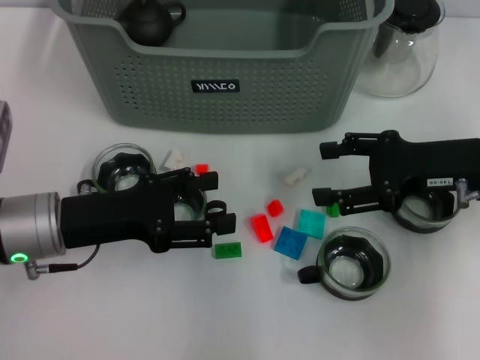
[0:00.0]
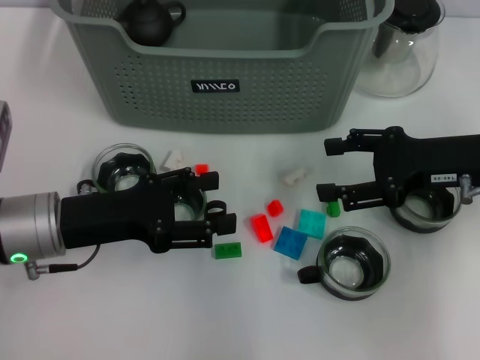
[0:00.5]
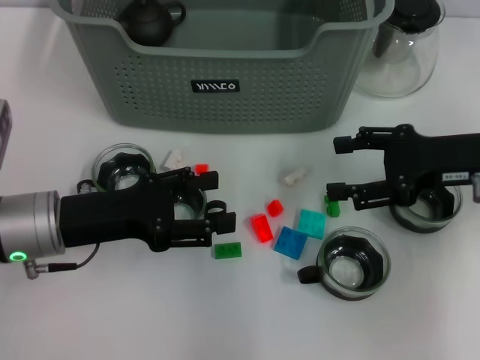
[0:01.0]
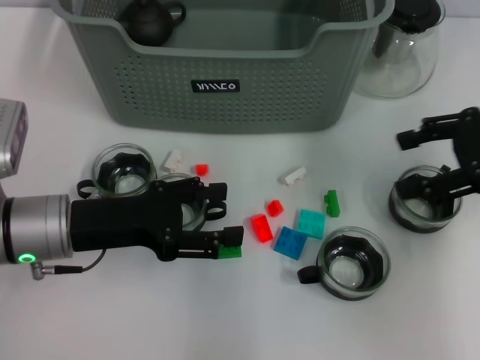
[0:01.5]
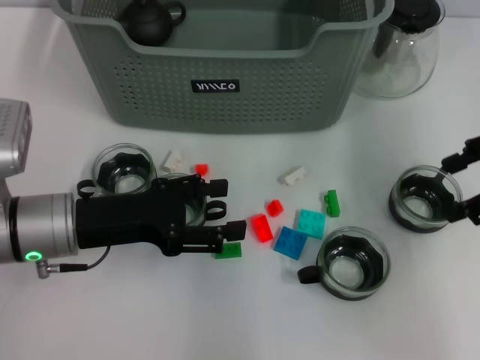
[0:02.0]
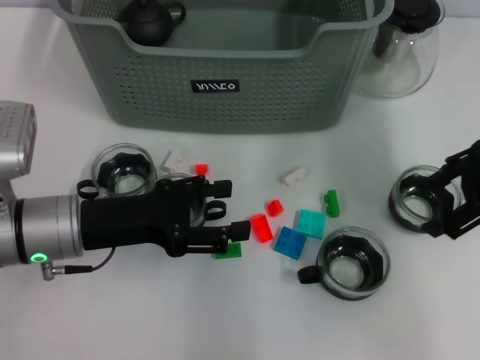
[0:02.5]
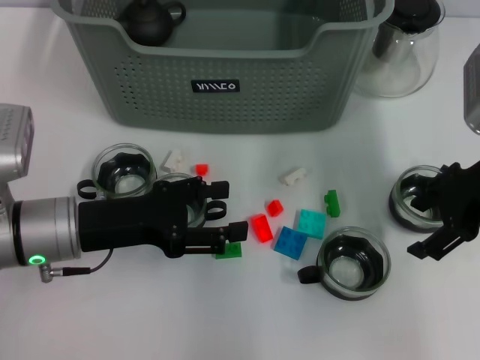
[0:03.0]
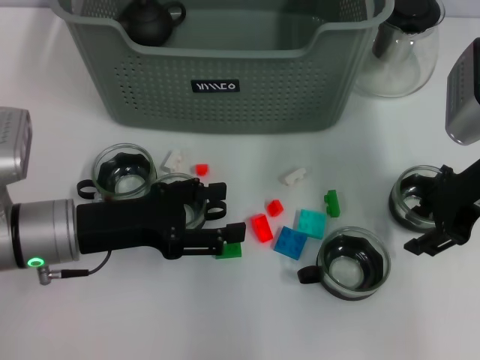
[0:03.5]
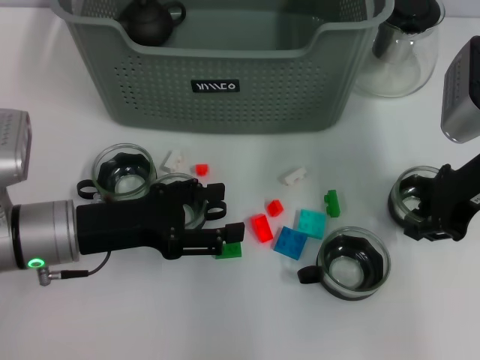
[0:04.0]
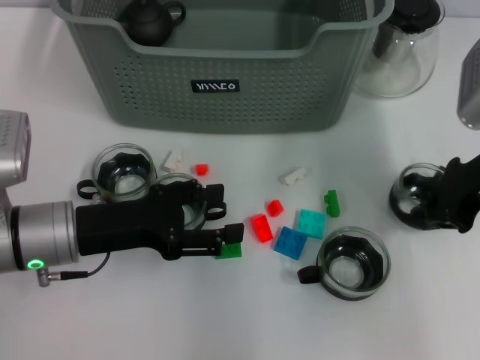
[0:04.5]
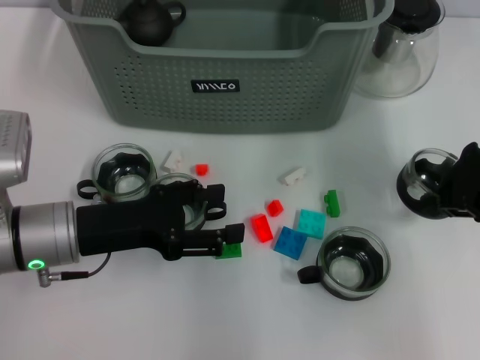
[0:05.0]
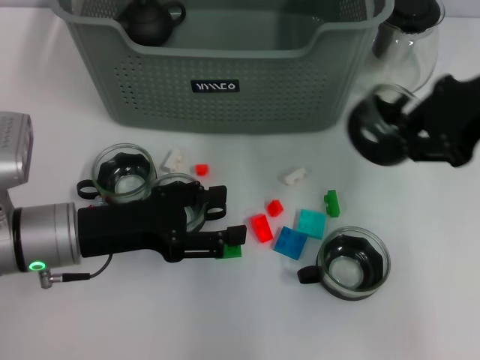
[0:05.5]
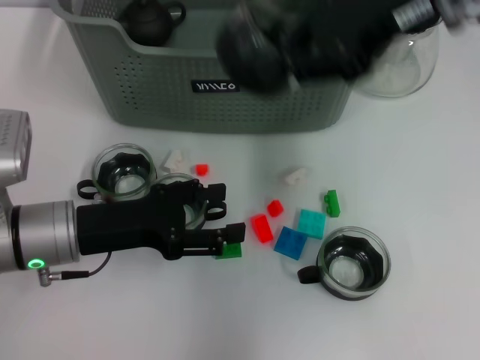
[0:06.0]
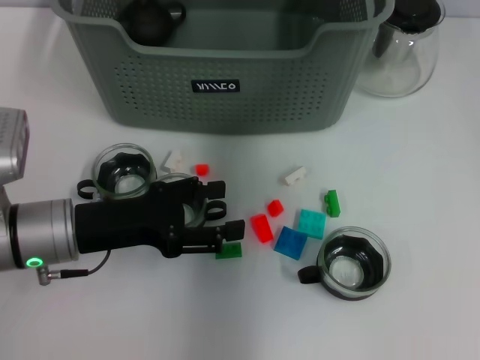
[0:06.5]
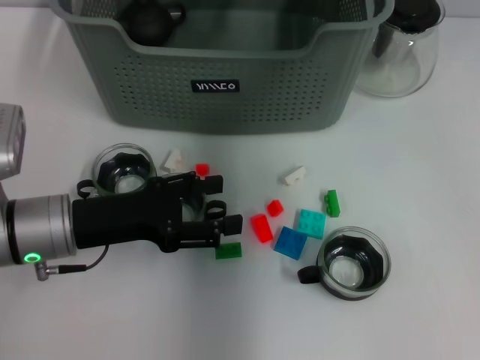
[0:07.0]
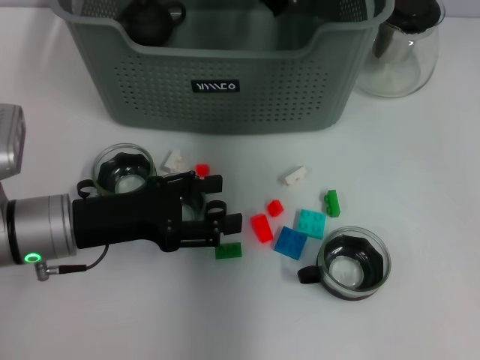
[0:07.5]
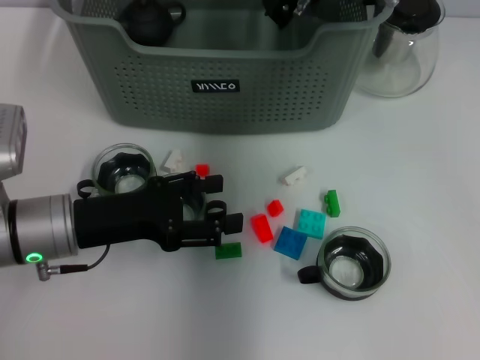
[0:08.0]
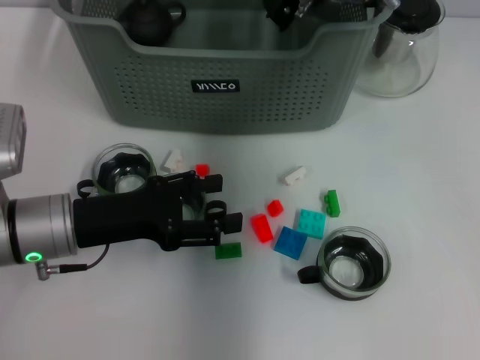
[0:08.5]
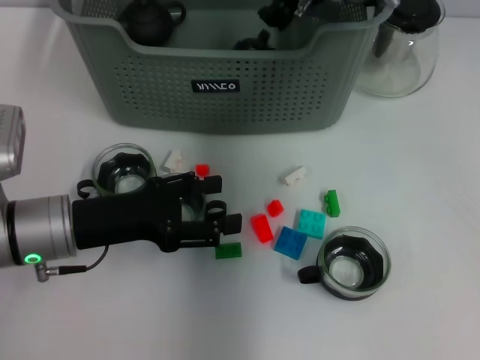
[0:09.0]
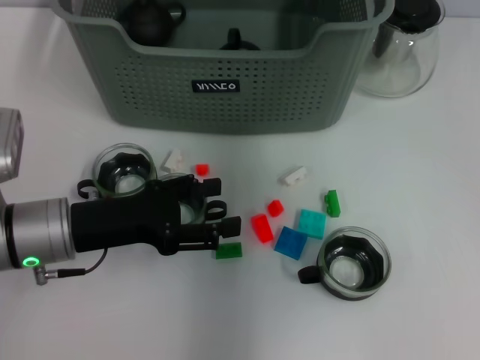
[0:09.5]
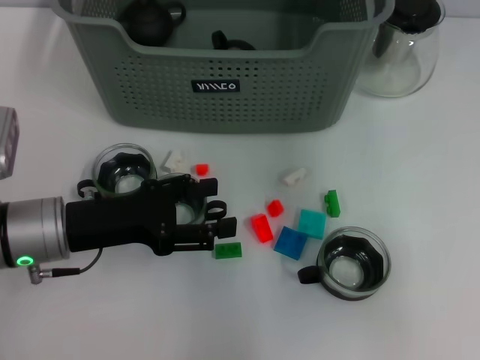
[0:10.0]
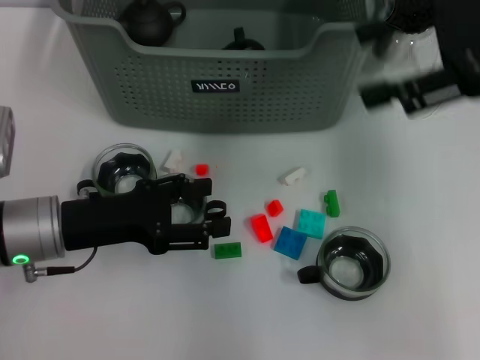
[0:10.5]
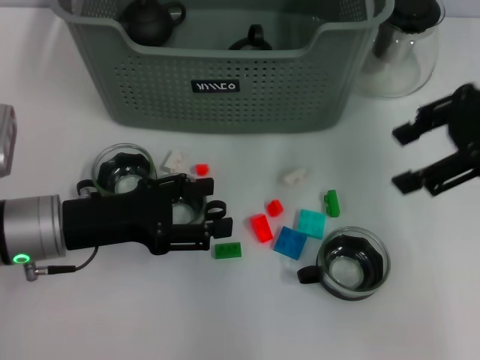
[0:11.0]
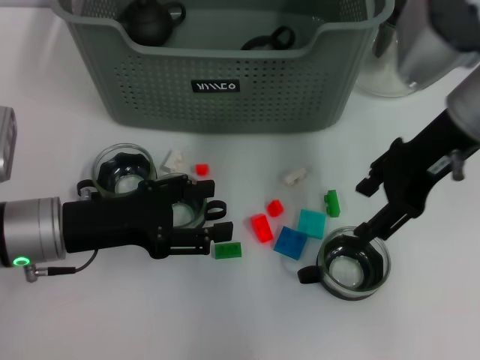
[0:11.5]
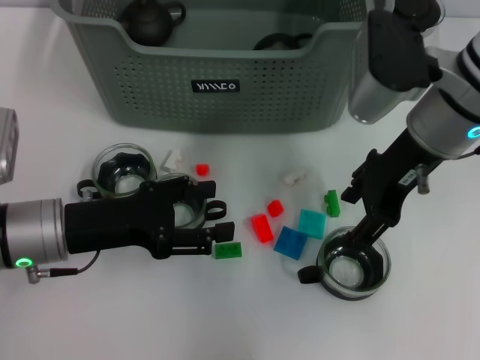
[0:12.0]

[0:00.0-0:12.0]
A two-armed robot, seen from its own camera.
Task of the whole recording: pick up the teacup on the table and place it into the storage bin, pick up the block on the table and place it into the storage bin.
Step, 0:00.0 to 0:04.0: Grasp the cup with right gripper.
Step, 0:04.5 to 0:08.5: Place the cup in the storage box with right gripper.
0:00.0 to 0:02.0: The right gripper travels upward and to the right by about 10 cm.
0:02.0 to 0:04.0: The right gripper goes about 10 cm to the left and downward, and closes up.
0:04.0 to 0:06.0: The right gripper moves upward and to the left, about 20 cm.
0:06.0 to 0:08.0: The right gripper moves downward, forward and to the left, roughly 15 cm.
0:08.0 to 0:10.0: The right gripper moves upward, backward and to the right, some 20 cm, and opens up.
0:10.0 to 0:12.0: The right gripper moves downward, about 15 cm.

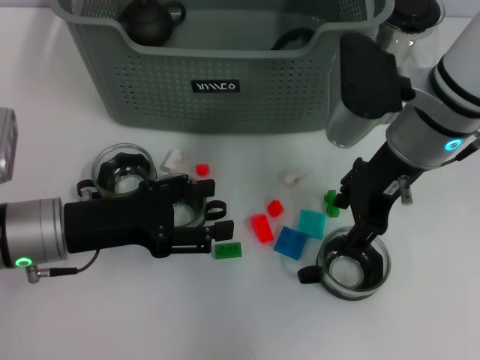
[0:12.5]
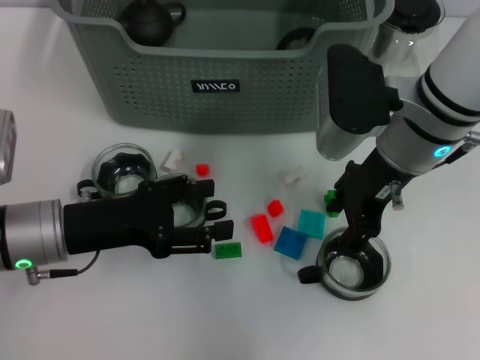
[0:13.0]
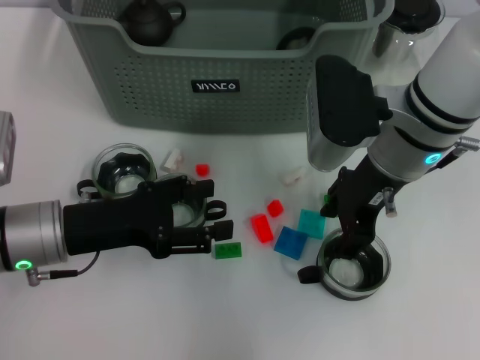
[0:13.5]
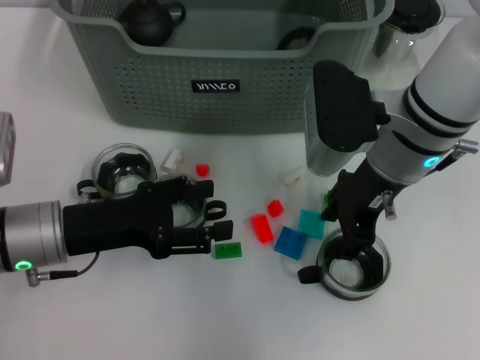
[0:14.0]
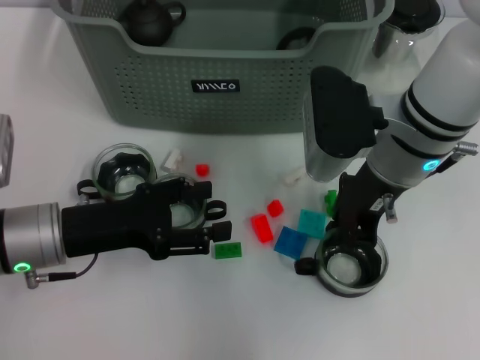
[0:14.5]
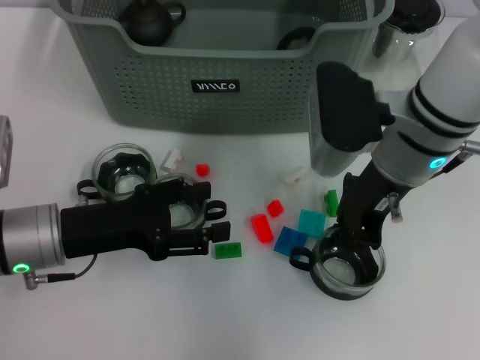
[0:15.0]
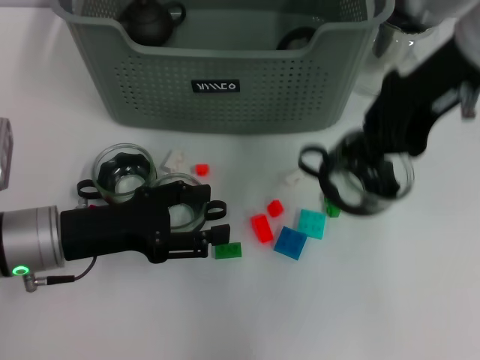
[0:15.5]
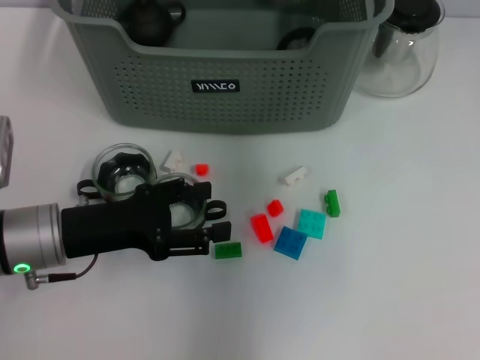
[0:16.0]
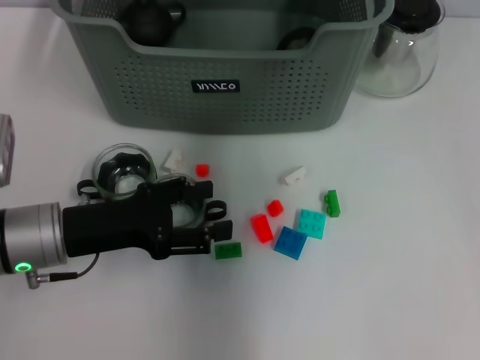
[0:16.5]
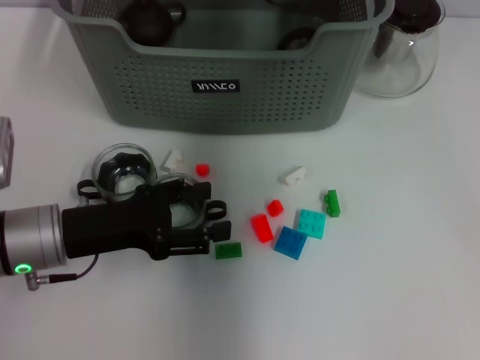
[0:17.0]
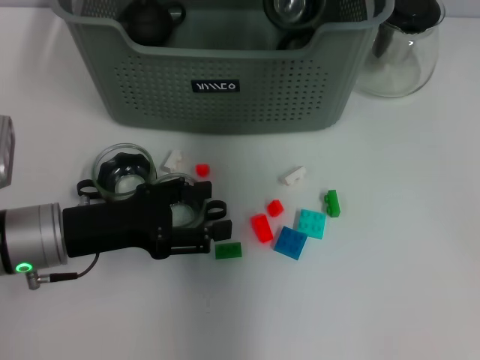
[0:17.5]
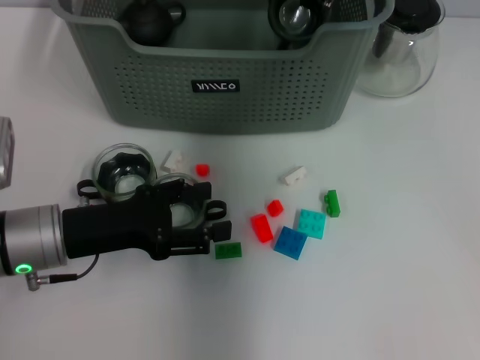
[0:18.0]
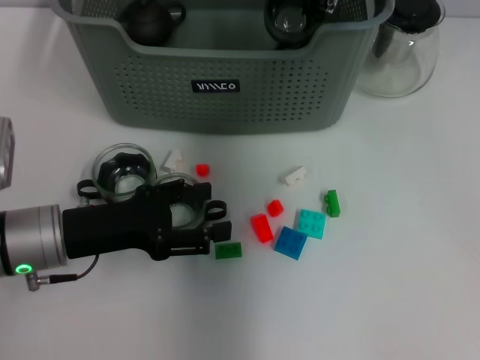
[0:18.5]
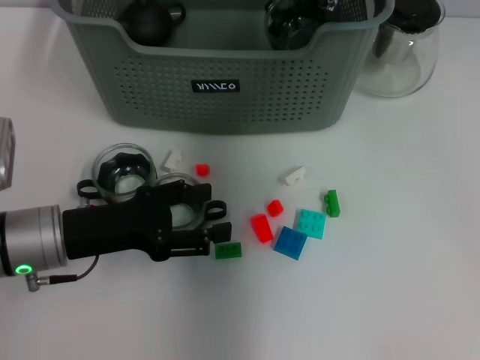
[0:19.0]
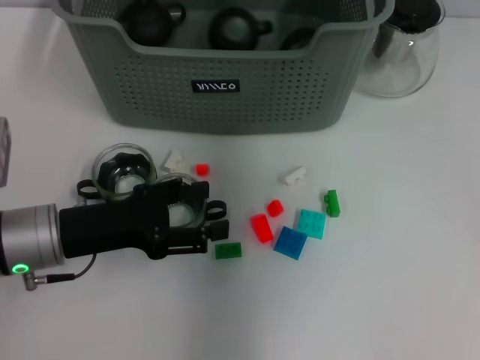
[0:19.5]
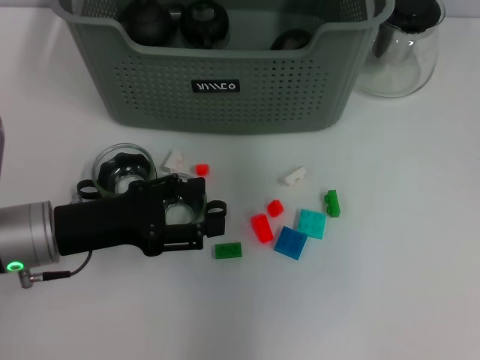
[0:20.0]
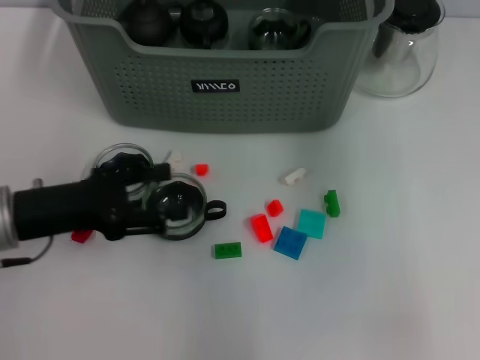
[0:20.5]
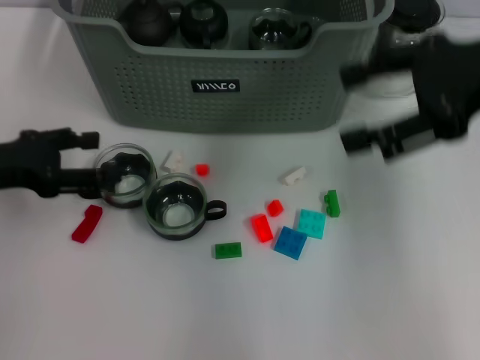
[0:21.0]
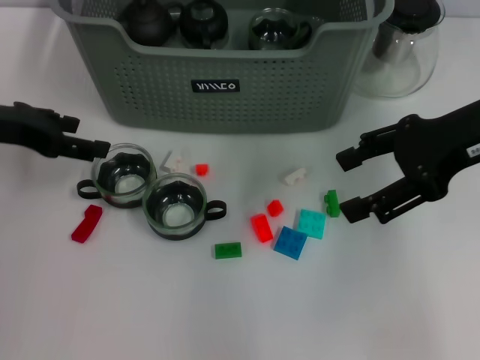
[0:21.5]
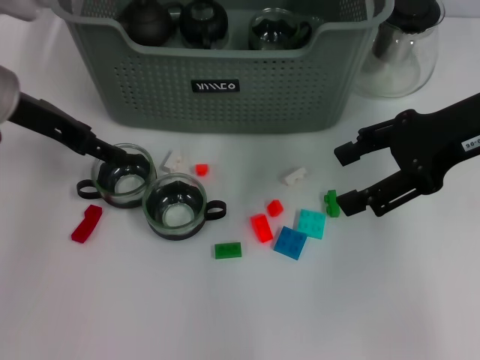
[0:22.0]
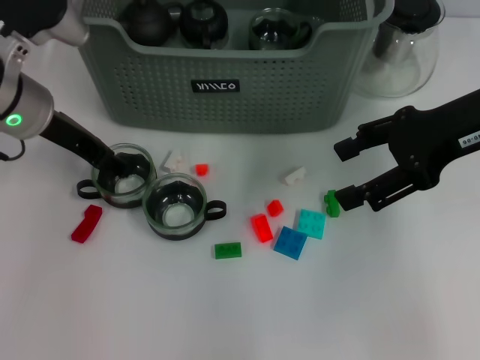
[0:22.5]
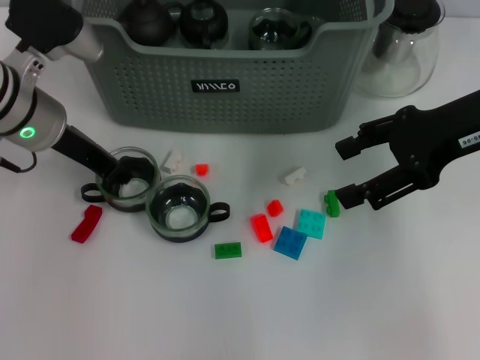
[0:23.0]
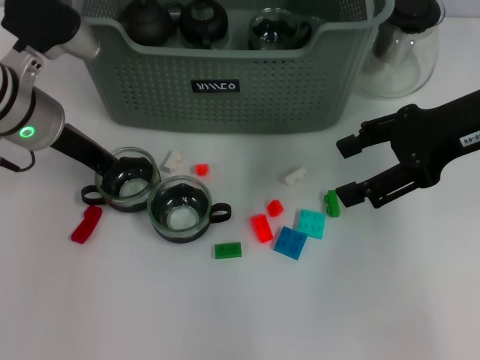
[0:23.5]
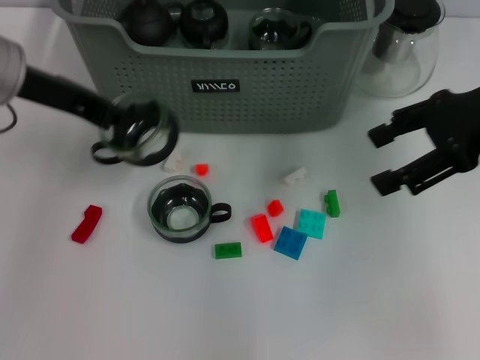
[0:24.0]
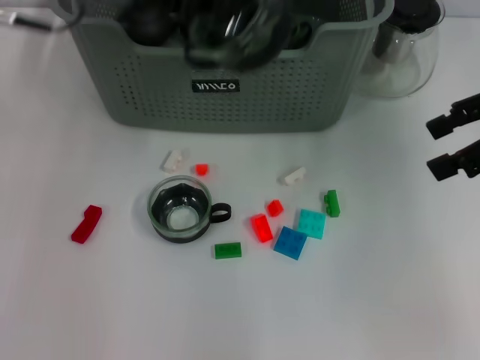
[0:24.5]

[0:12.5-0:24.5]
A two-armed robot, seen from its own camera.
Task of the whole recording: pick up the teacup on the table and place it into the storage bin, pick up the block on the table and place it into the storage bin.
Step, 0:12.5 to 0:14.5: Grasp the cup with right gripper.
Step, 0:15.0 to 0:19.0: Place the cup in the storage box with right gripper.
Step, 0:19.5 to 0:23.5: Grasp the cup with left gripper.
0:12.5 to 0:14.5: The right gripper closes.
0:14.5 to 0:16.5: The right gripper moves upward and forward, approximately 20 cm.
0:16.5 to 0:18.5: The right gripper shifts roughly 10 cm downward.
0:18.5 to 0:20.5: The right gripper shifts some 20 cm upward, backward and to the right, and opens its fingers.
0:20.5 to 0:22.5: The left gripper heads forward and upward, covering roughly 15 cm. Meanwhile the right gripper moves downward, roughly 10 cm.
0:22.5 to 0:24.5: The right gripper heads to the right, covering approximately 5 cm; the left gripper shifts approximately 15 cm upward, and closes.

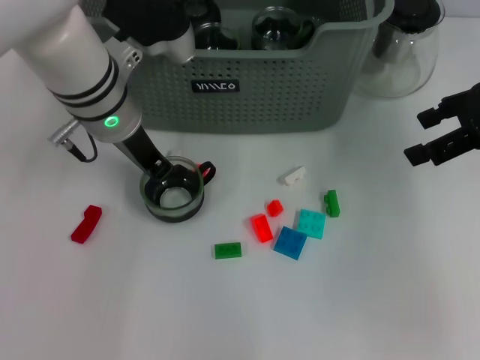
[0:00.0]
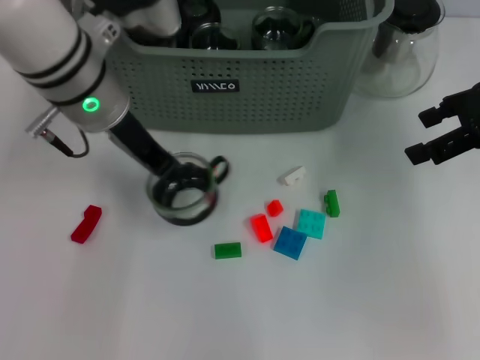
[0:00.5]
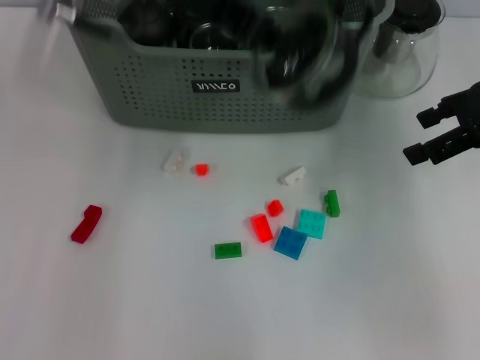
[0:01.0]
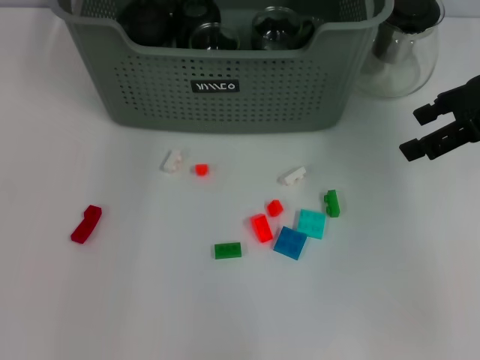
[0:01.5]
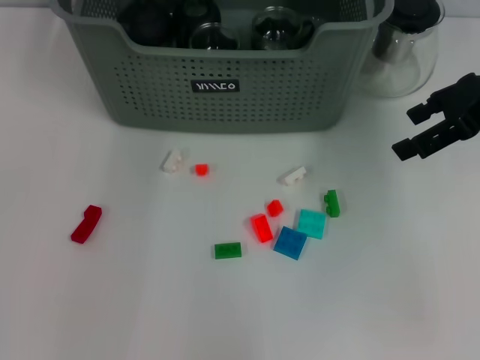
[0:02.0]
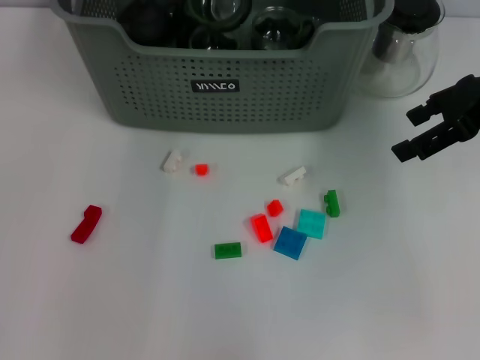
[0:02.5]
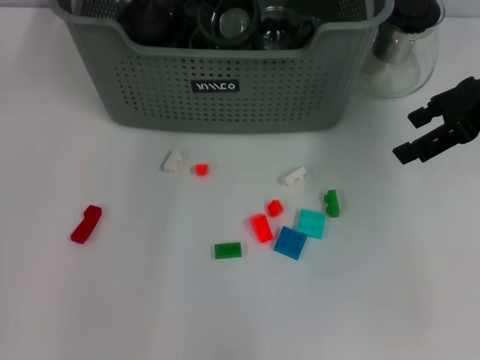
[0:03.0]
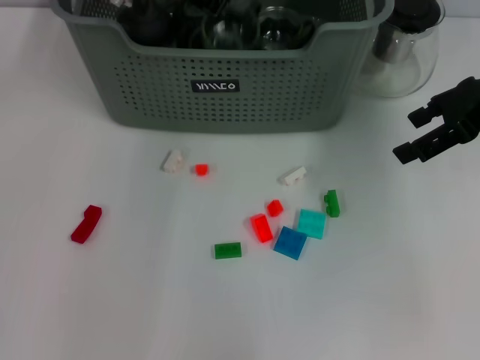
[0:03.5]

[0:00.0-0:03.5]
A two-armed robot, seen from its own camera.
Task of the whole recording: pick up the teacup on the table and place it into the storage bin, pick up the block on the table and place it into the storage bin.
0:00.0 to 0:02.0: The left gripper is displaced forward and upward by some 15 cm.
0:02.0 to 0:03.5: The left gripper goes some 5 cm downward.
